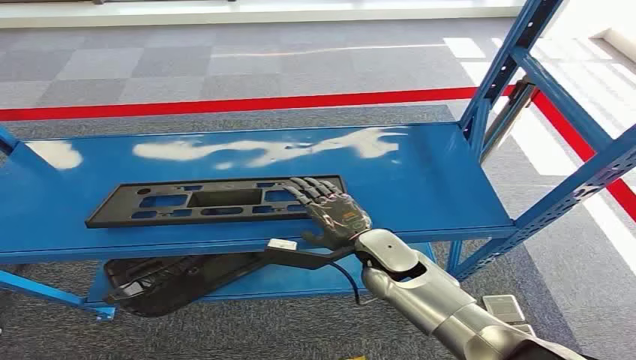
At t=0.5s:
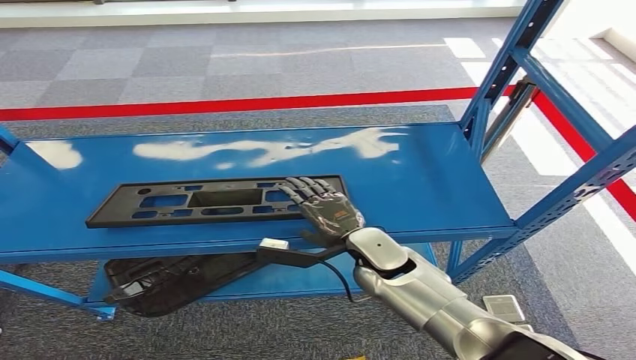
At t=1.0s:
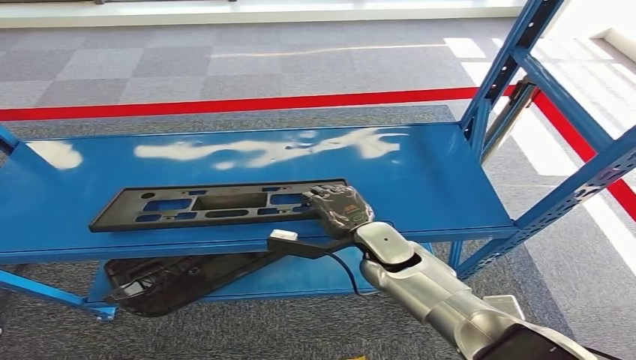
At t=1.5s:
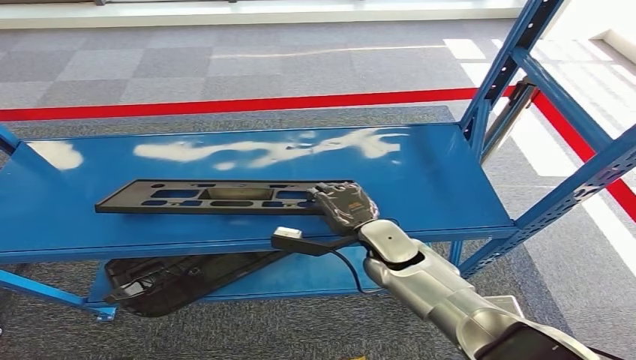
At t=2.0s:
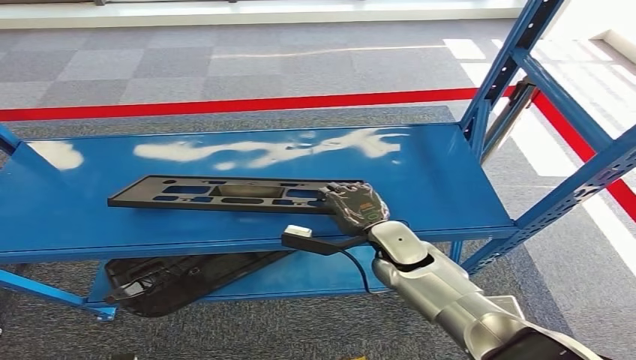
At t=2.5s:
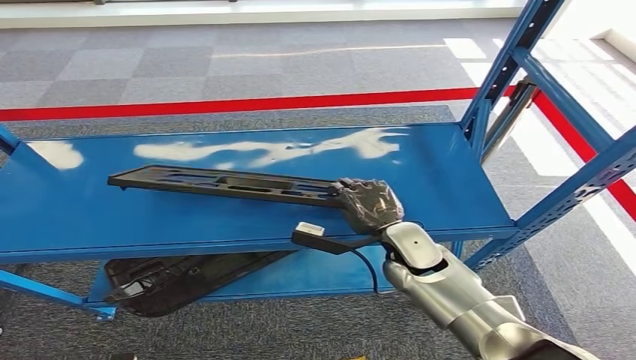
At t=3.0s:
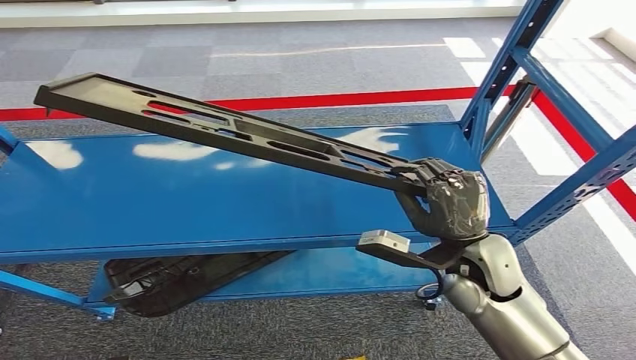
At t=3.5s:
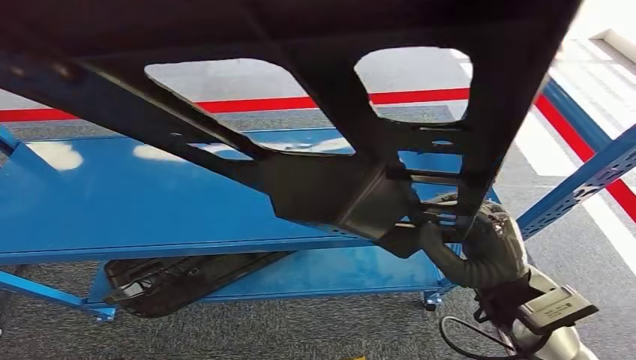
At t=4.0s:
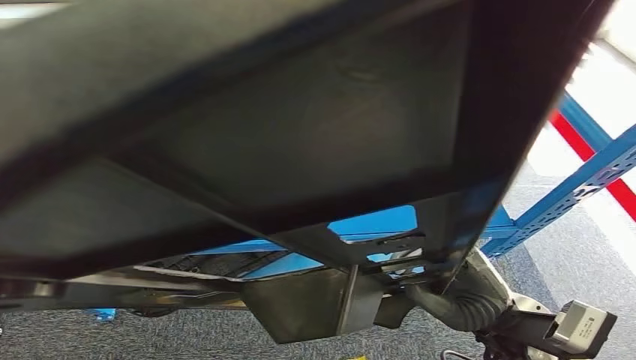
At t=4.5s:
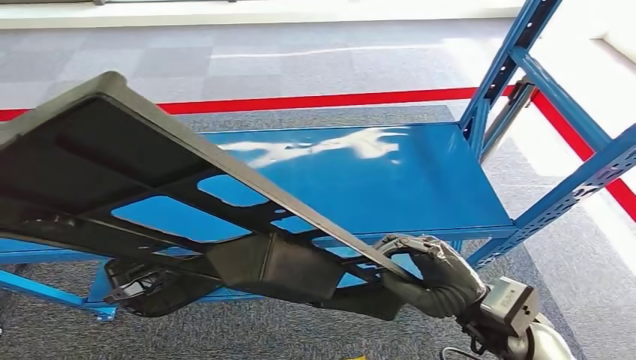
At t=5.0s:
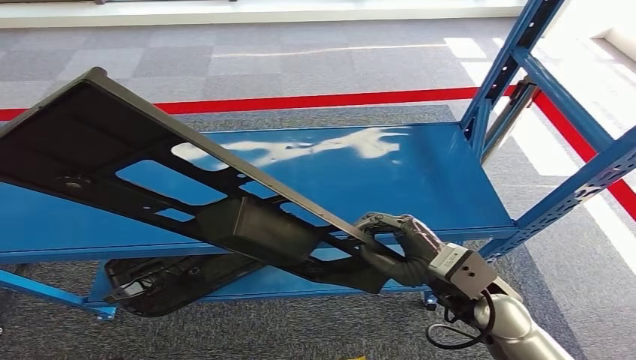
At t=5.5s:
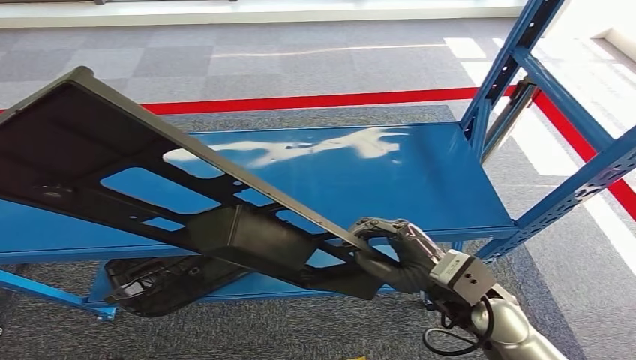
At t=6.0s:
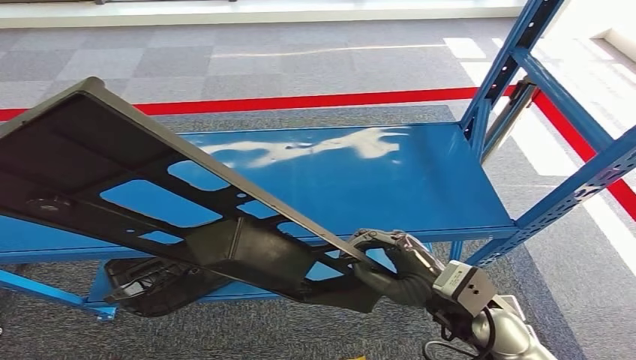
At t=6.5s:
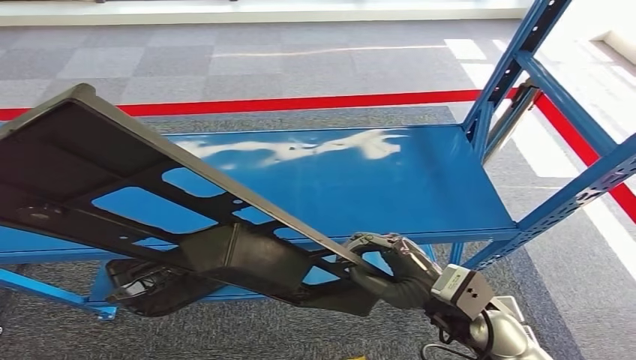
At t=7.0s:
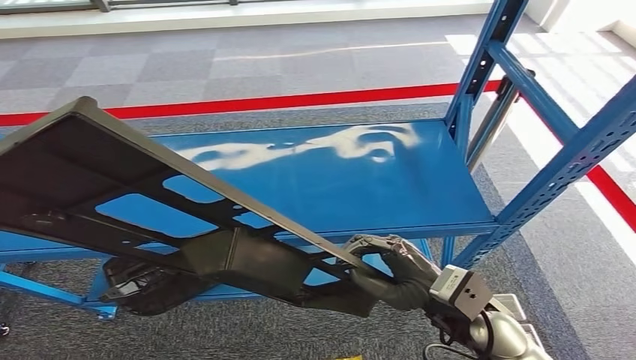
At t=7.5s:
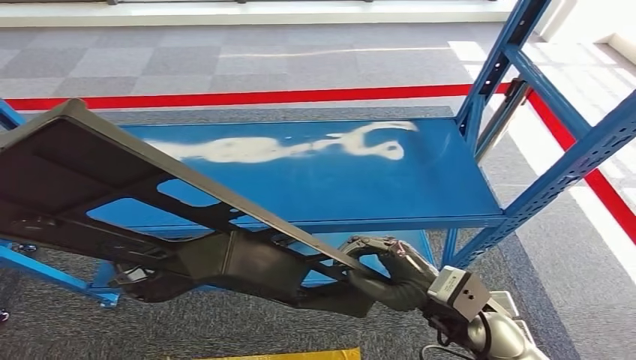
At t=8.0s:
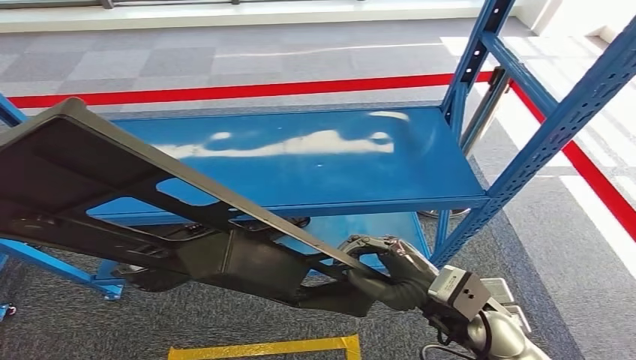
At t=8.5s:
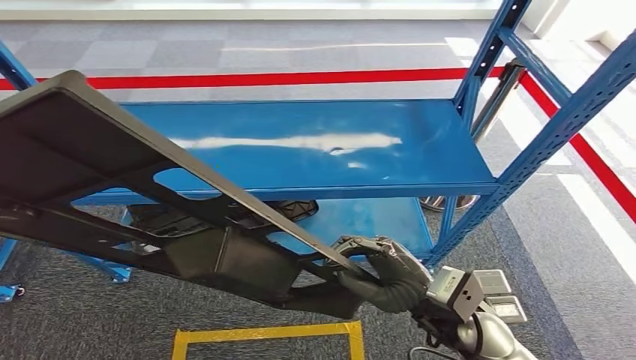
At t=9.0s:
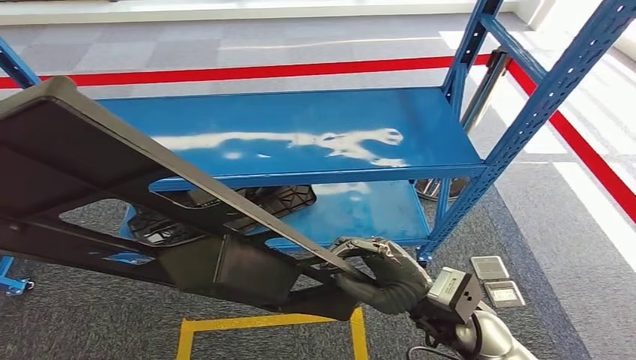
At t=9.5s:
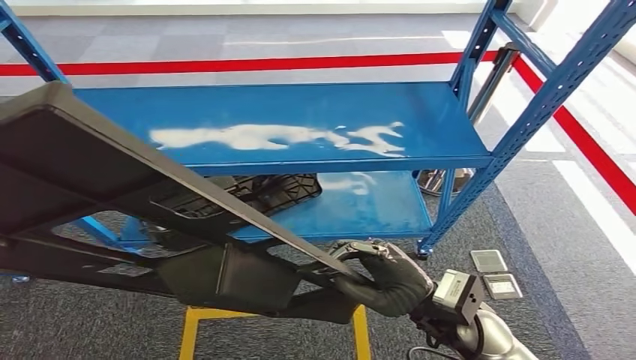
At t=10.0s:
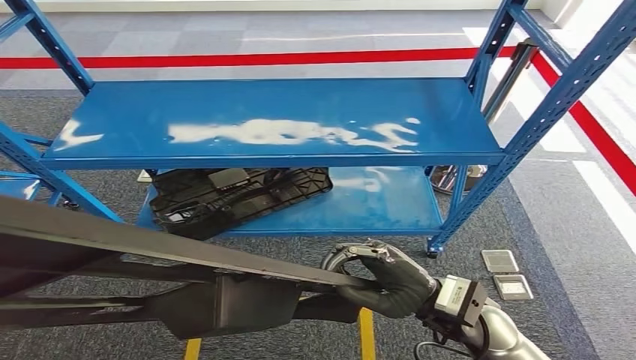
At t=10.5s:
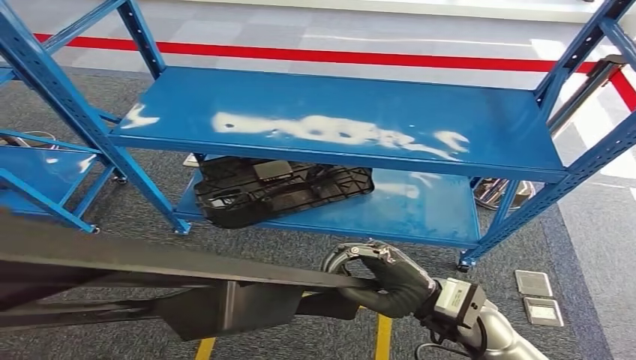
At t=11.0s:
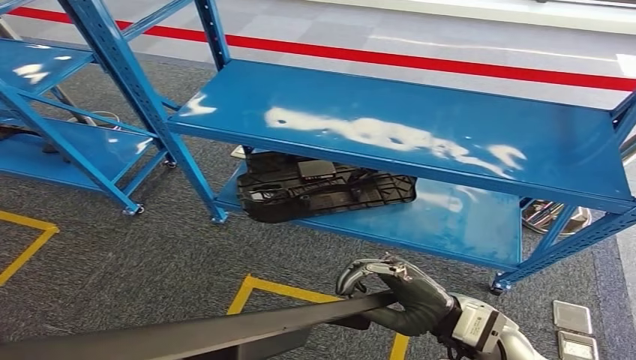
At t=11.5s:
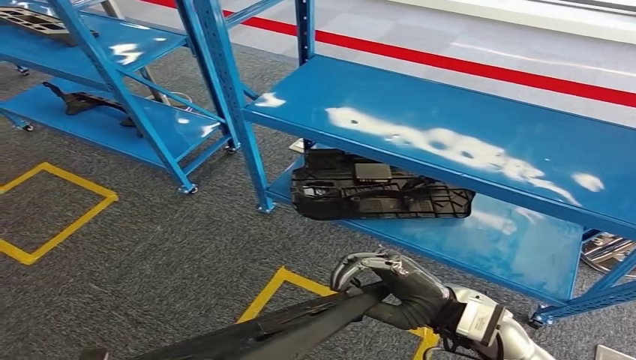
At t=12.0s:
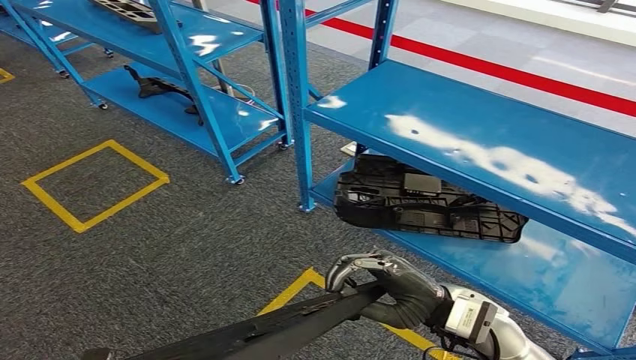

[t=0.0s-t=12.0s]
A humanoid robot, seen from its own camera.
Step, t=0.0s to t=3.0s: Pick up the large material from the shelf.

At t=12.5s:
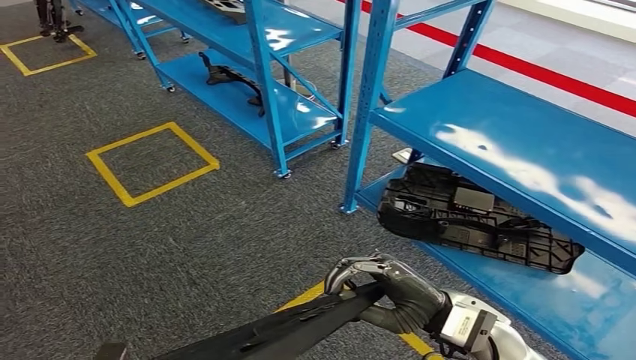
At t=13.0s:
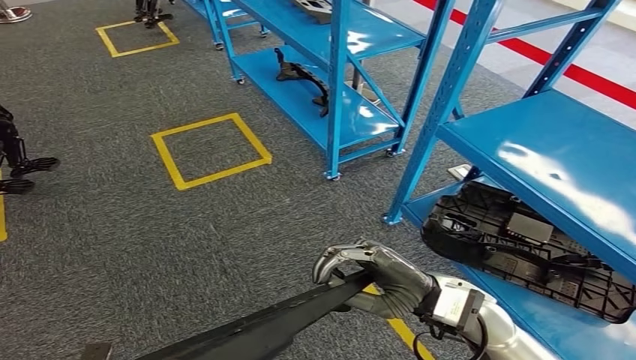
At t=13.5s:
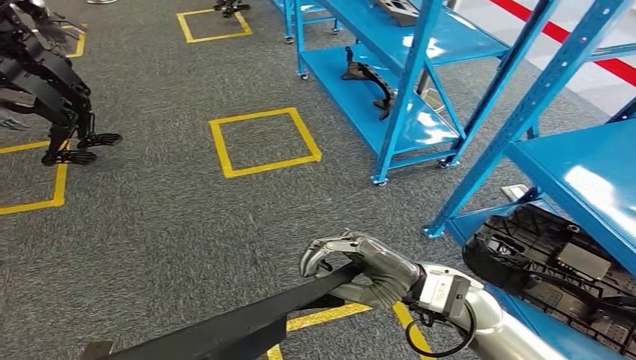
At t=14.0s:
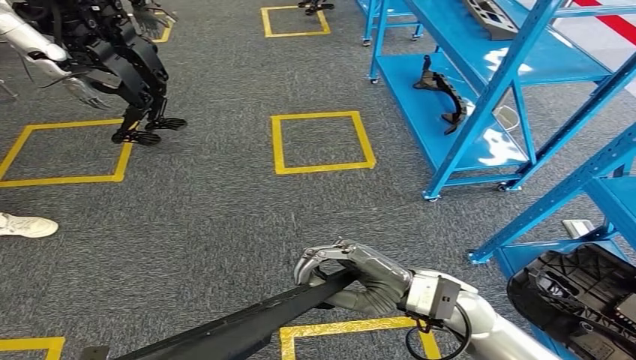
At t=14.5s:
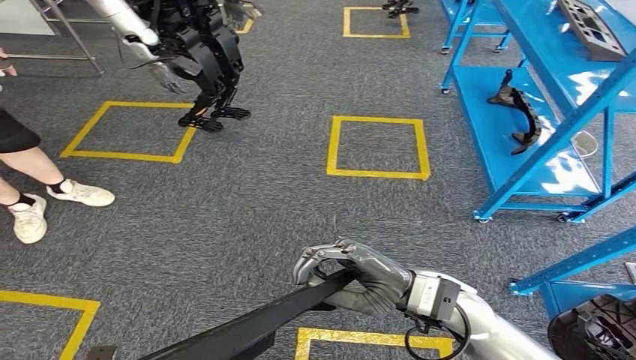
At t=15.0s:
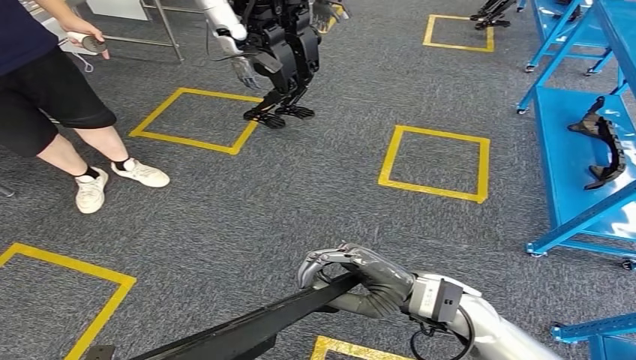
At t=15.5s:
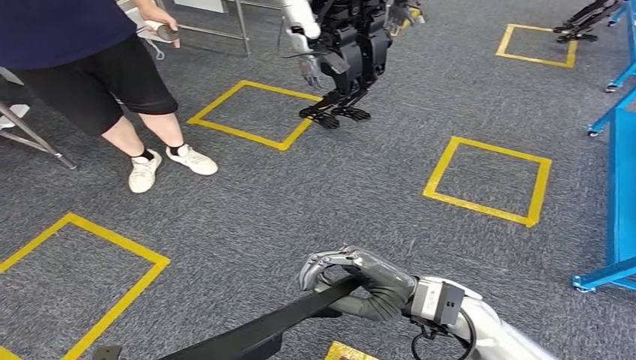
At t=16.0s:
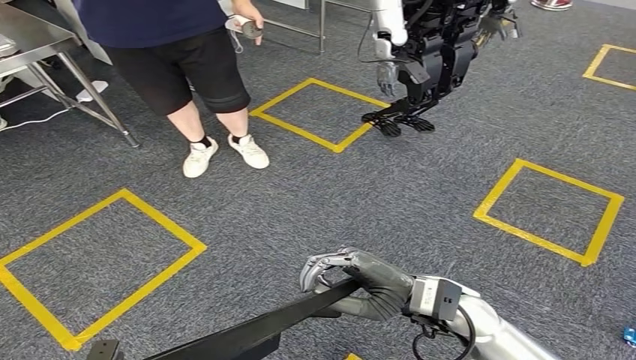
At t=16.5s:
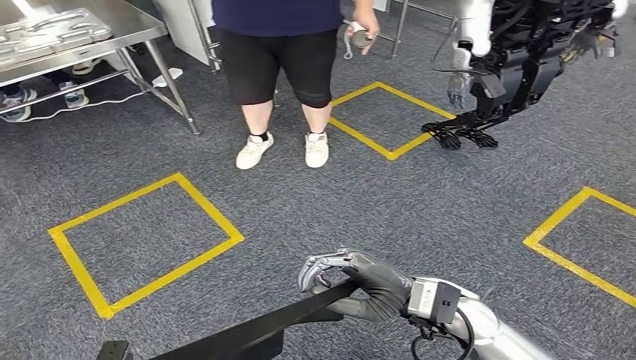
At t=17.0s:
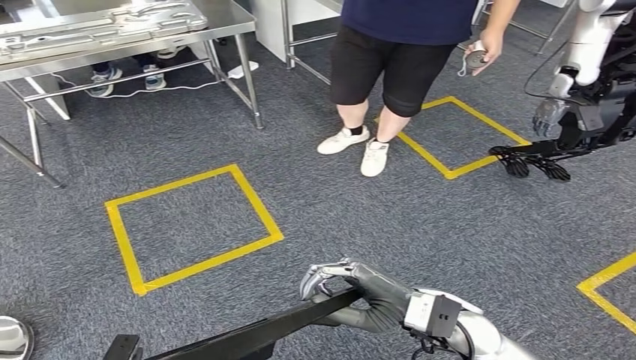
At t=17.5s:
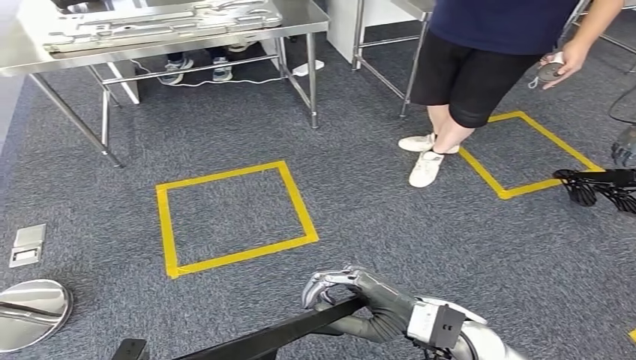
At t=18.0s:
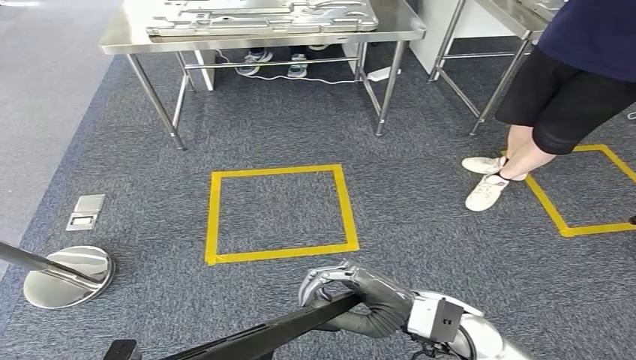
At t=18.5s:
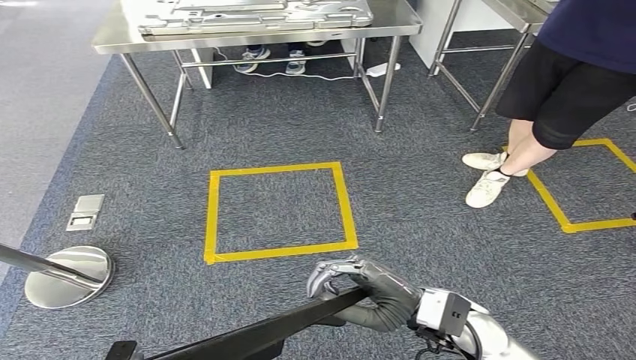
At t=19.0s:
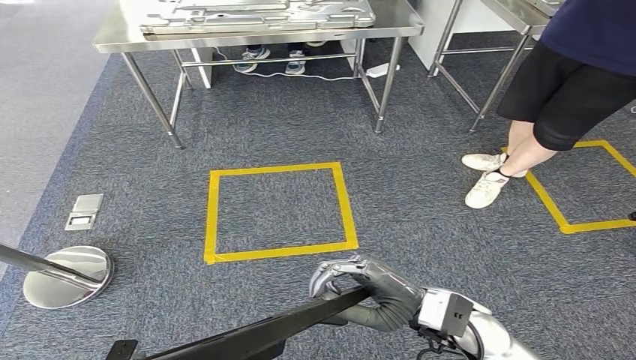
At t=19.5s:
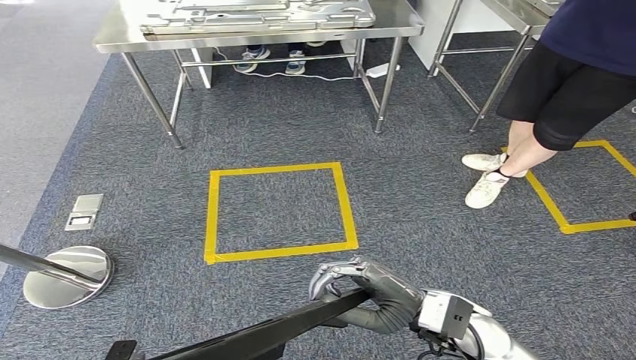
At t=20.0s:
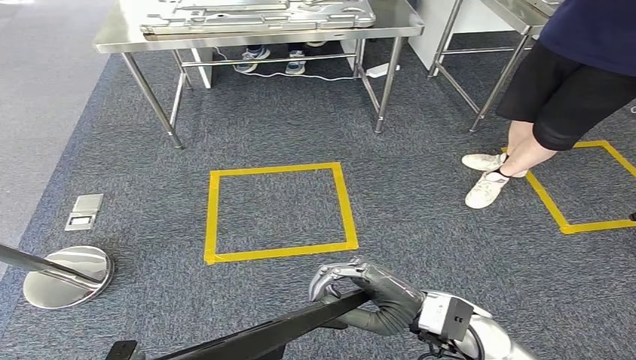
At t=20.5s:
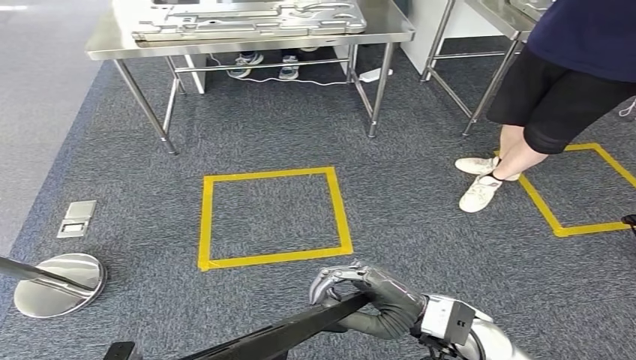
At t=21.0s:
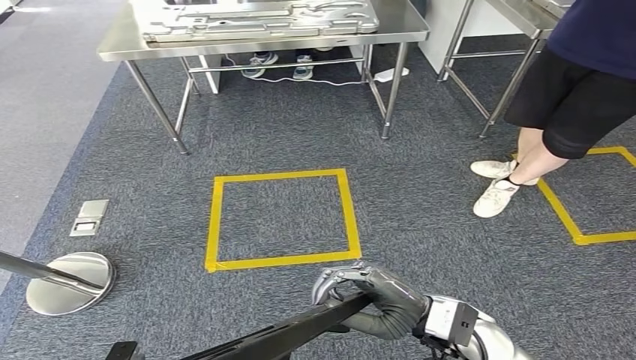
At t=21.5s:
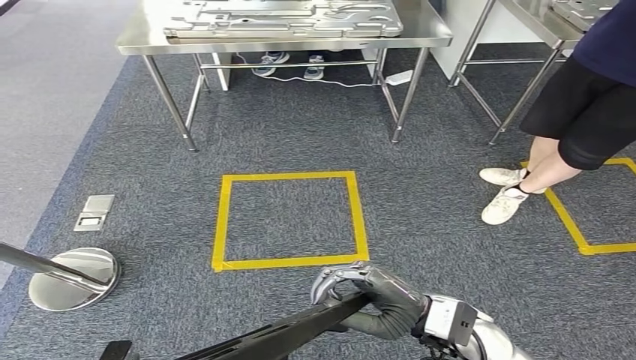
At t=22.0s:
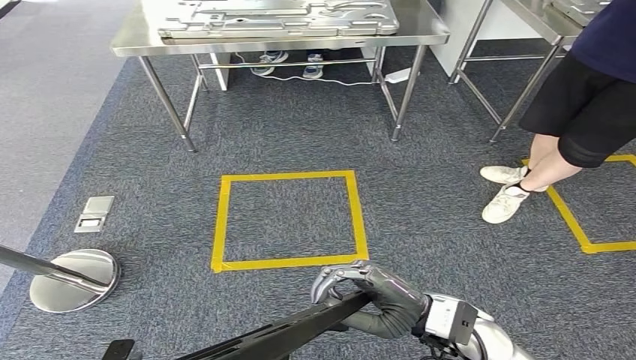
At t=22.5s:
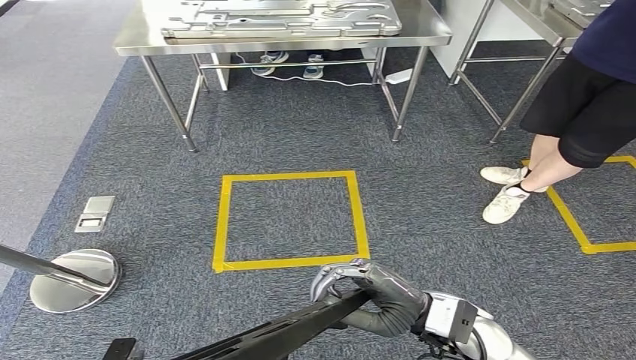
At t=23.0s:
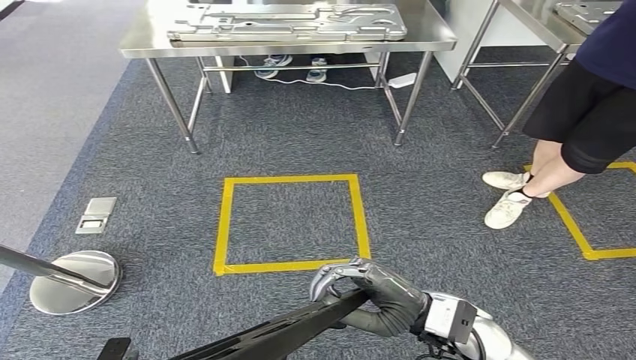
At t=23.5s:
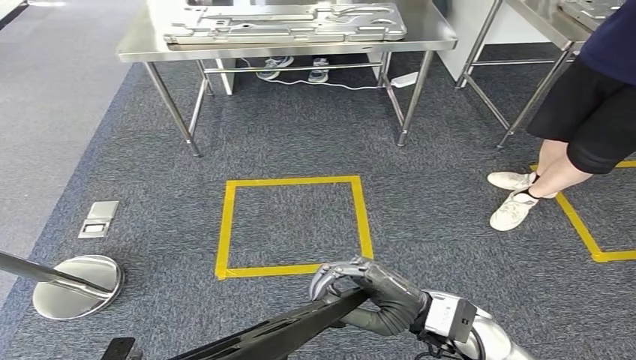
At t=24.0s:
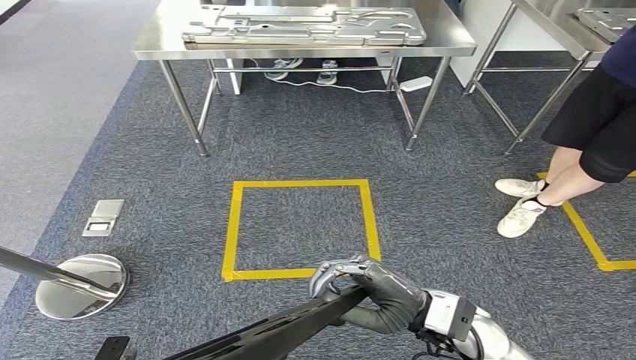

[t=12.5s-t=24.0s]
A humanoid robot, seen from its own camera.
t=18.5s to t=20.0s: Neither hand changes place.
